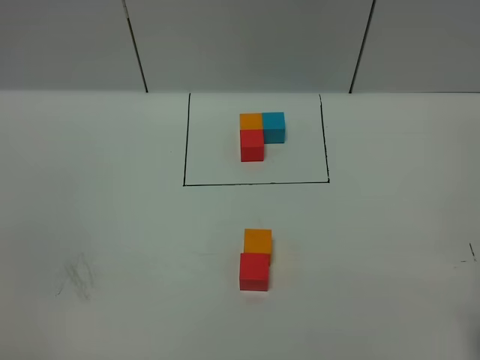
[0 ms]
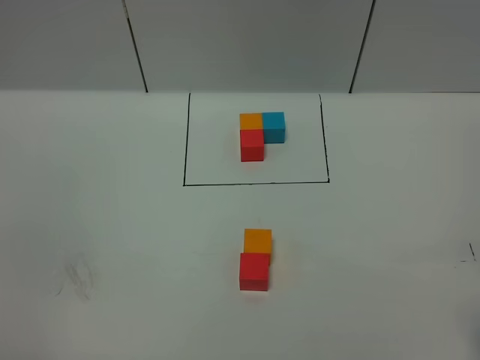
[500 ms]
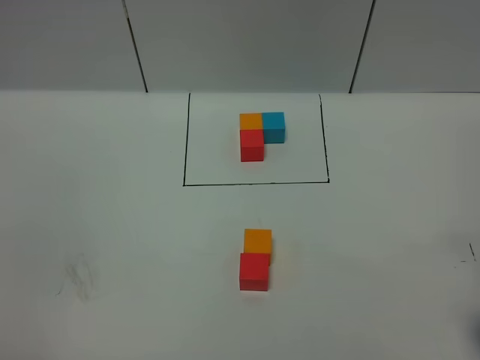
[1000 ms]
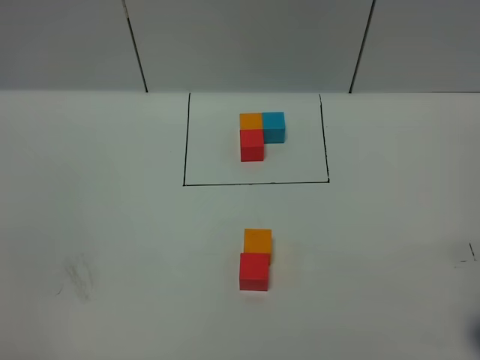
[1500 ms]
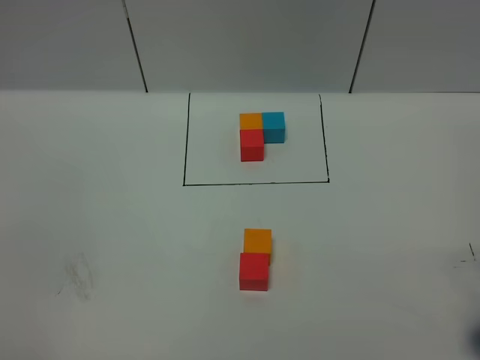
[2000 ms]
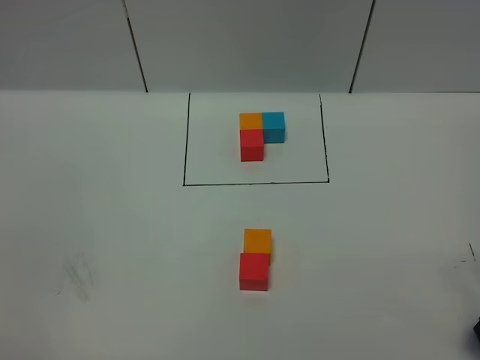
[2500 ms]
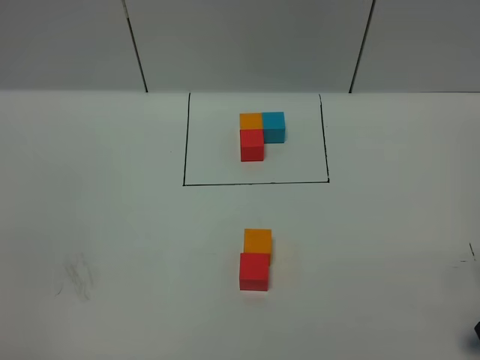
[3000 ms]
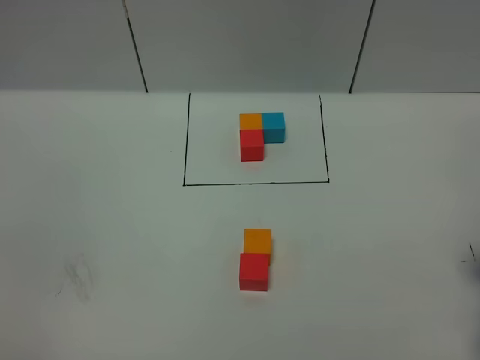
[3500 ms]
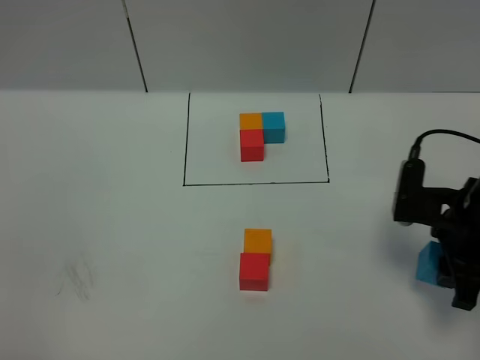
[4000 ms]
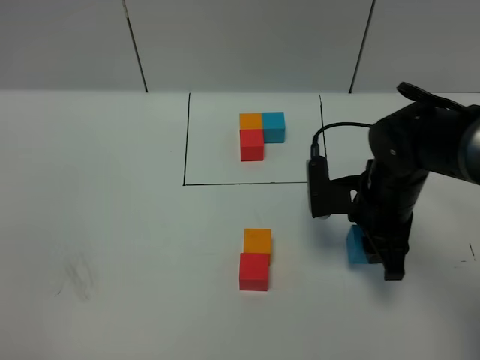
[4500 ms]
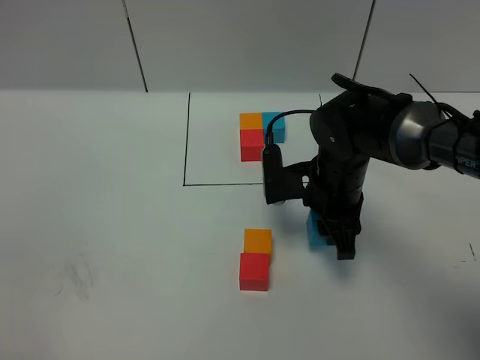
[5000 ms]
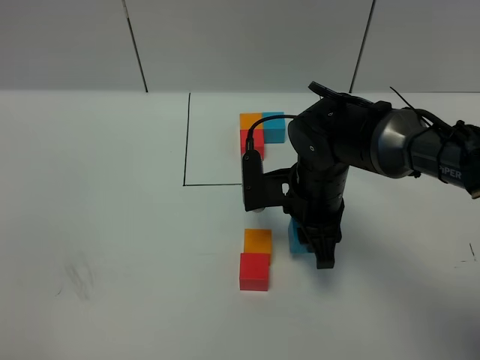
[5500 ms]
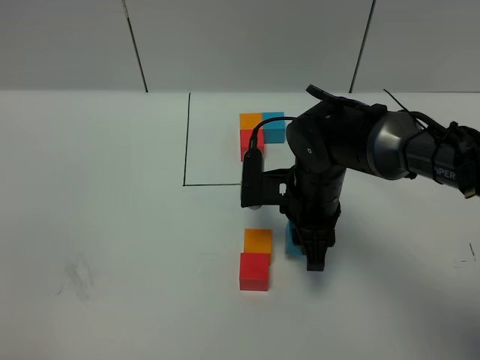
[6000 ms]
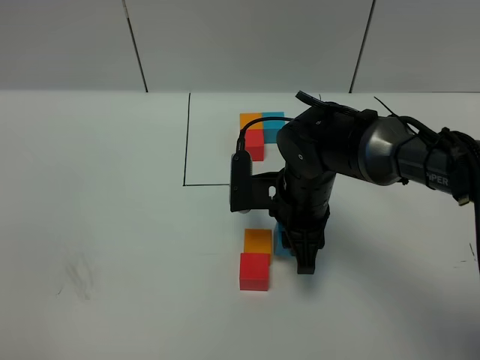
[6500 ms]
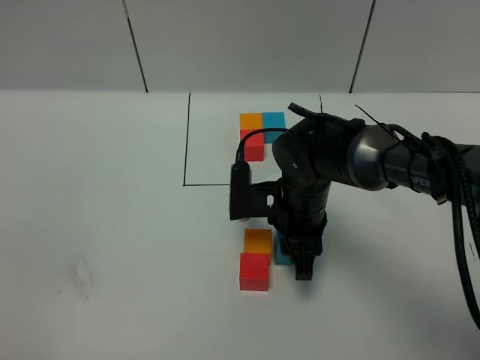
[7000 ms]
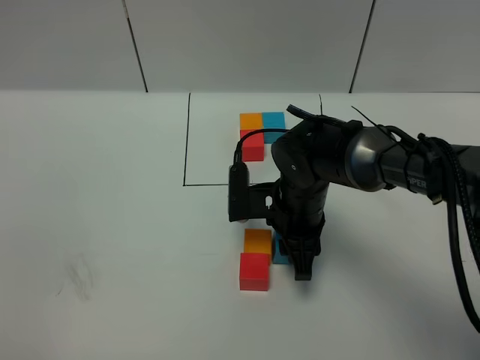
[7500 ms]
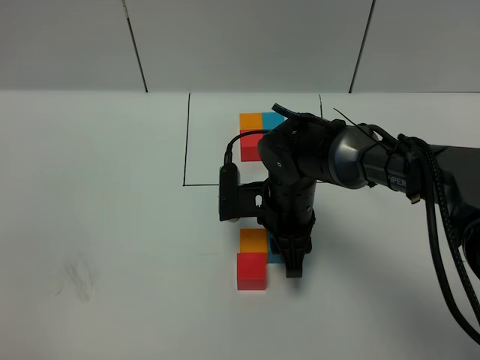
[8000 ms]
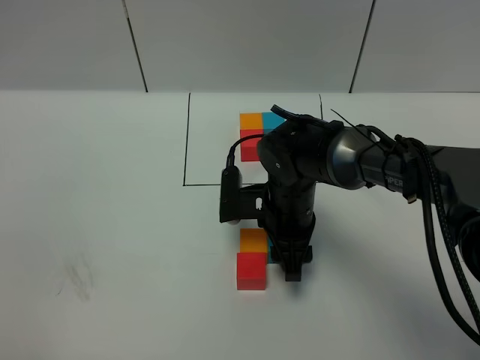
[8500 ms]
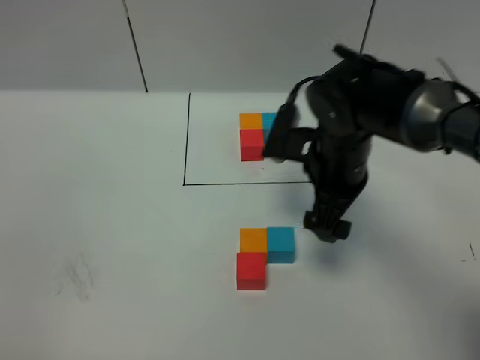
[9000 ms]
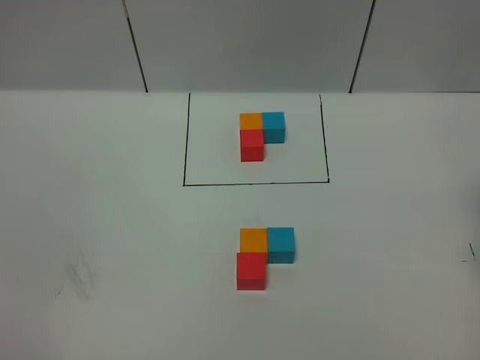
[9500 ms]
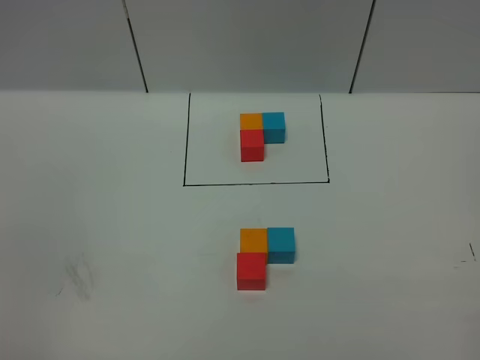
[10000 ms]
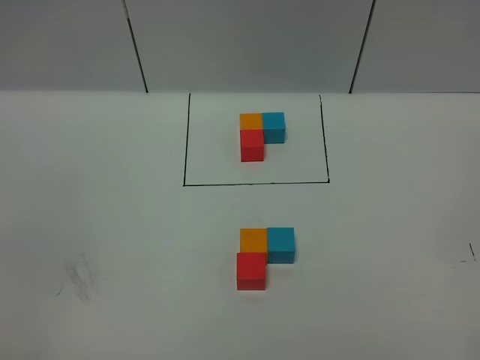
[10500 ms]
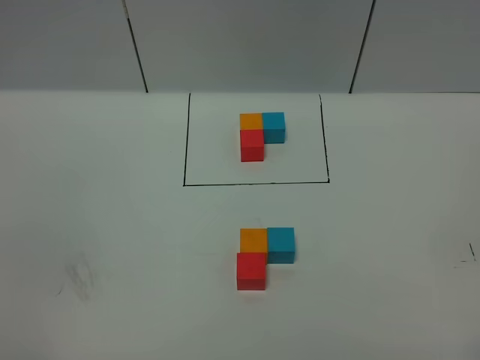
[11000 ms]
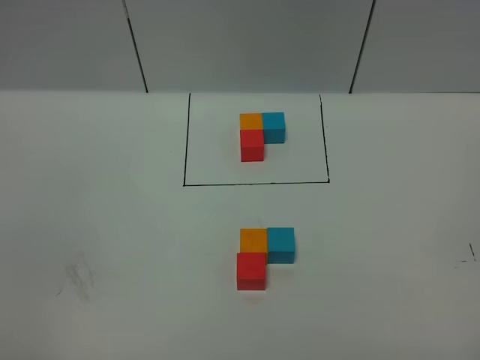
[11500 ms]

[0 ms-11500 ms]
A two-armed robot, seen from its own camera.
Task of the whole recording: According to the building block template in front, assemble the scattered blocks together.
Step, 0 ms to 8500 ms: Put the blue cube on the right of the orange cube.
2000 ms to 4000 ms: The right gripper heads to the left and forward, covering about 10 cm, and closes its fingers.
4000 ms to 6000 ms: The right gripper travels to the left and forward by roughly 20 cm.
6000 ms to 7500 ms: The grippers stay close to where they were, moving slightly.
7500 ms to 9500 ms: The right gripper heads to the right and upward, covering roughly 35 cm, and opens its fingers.

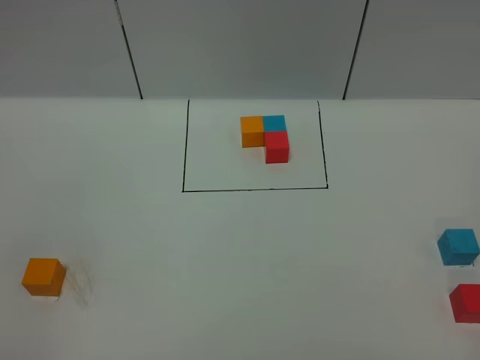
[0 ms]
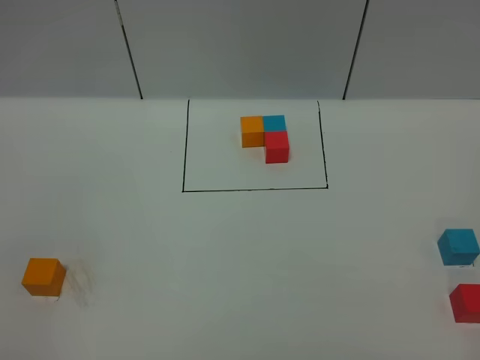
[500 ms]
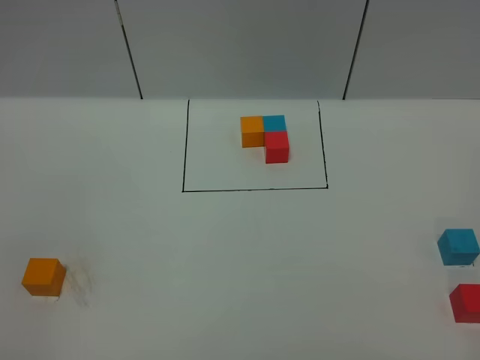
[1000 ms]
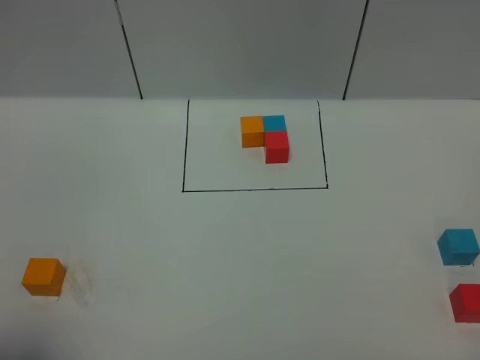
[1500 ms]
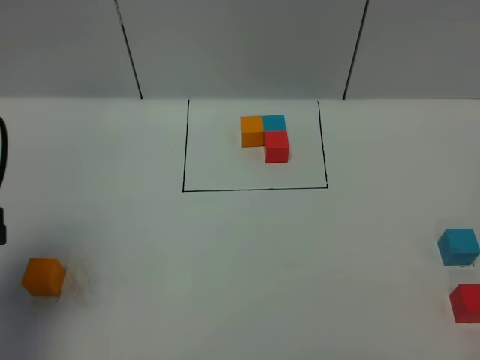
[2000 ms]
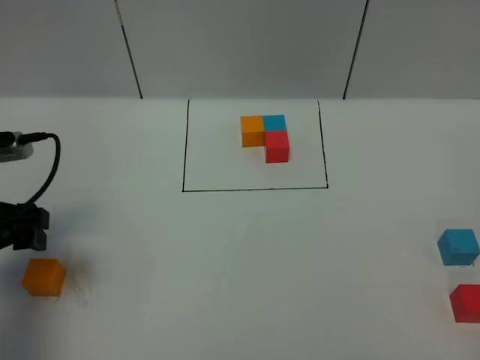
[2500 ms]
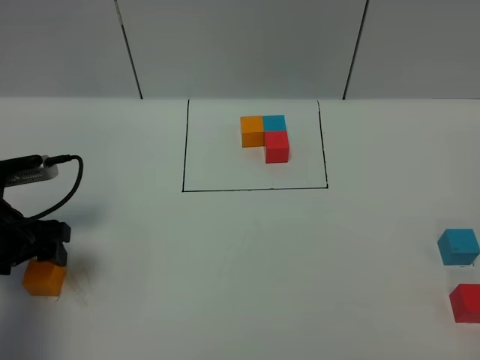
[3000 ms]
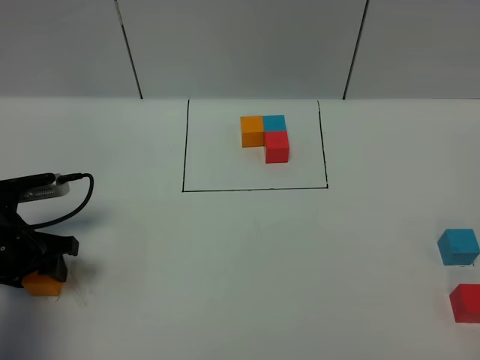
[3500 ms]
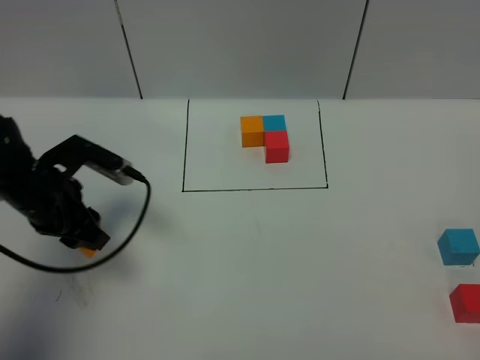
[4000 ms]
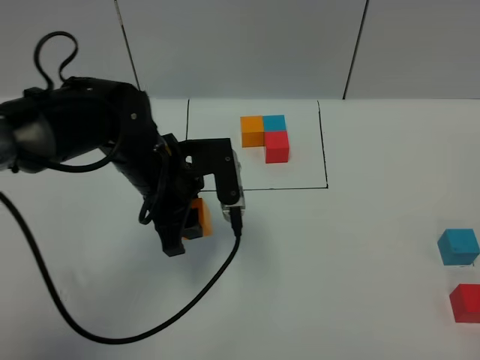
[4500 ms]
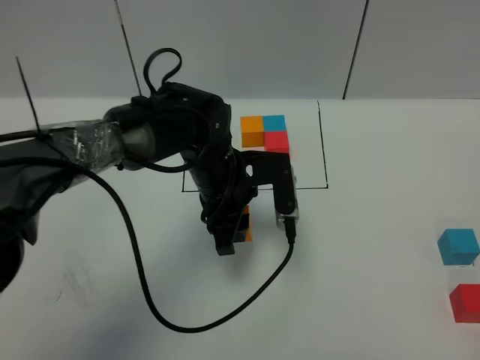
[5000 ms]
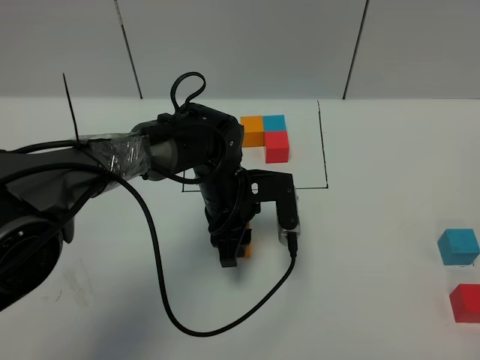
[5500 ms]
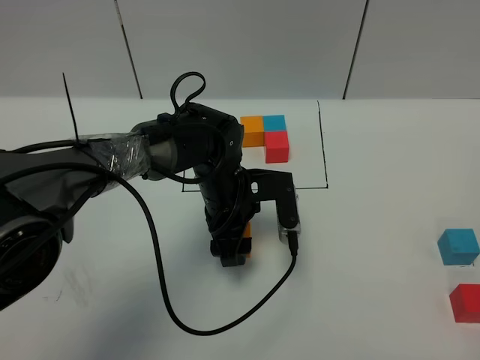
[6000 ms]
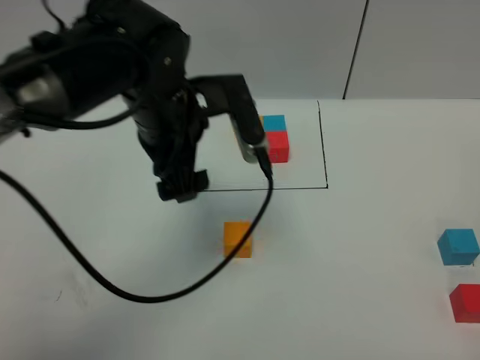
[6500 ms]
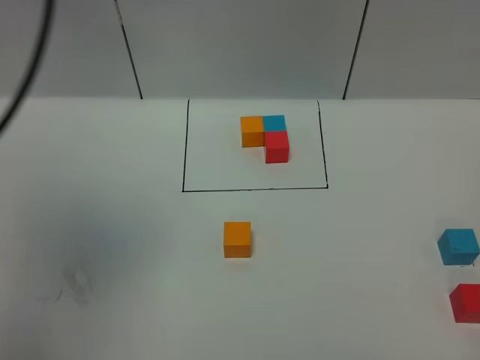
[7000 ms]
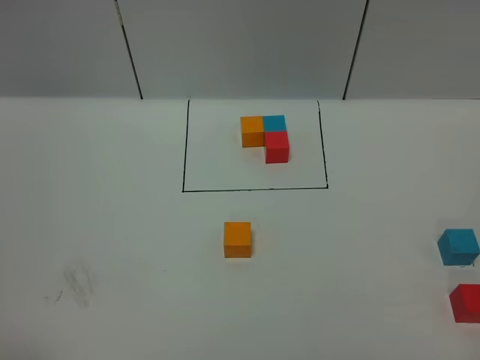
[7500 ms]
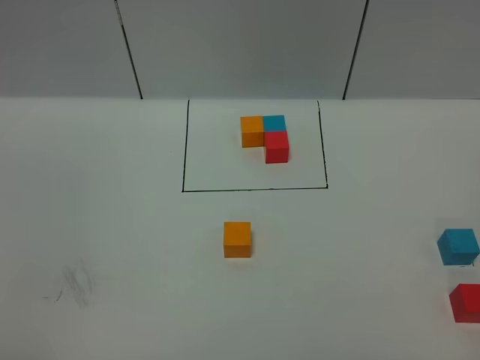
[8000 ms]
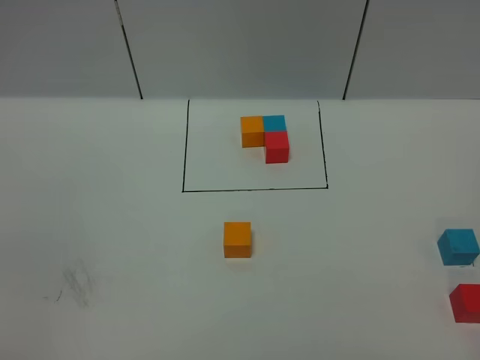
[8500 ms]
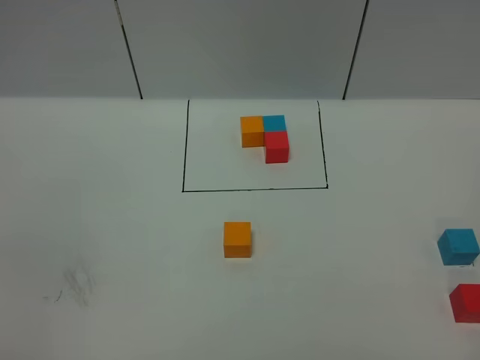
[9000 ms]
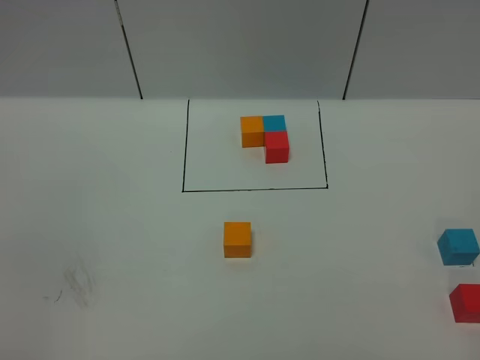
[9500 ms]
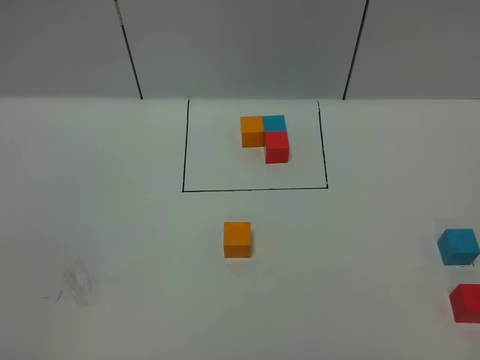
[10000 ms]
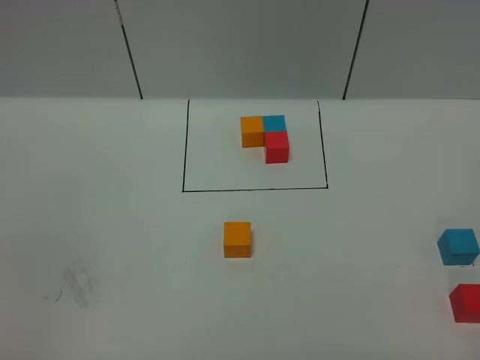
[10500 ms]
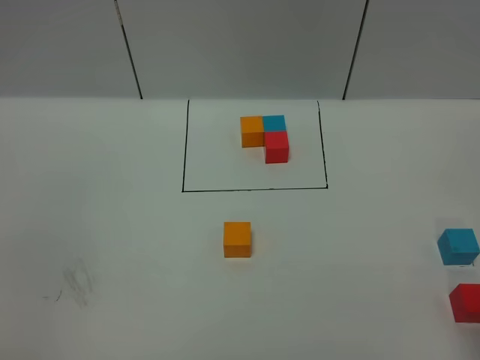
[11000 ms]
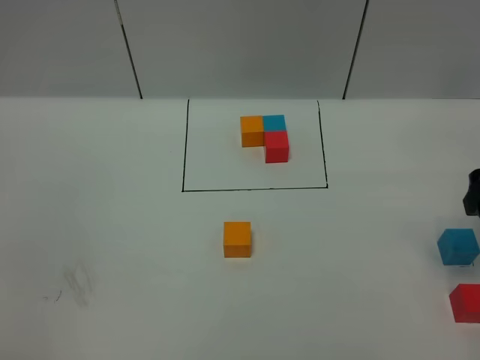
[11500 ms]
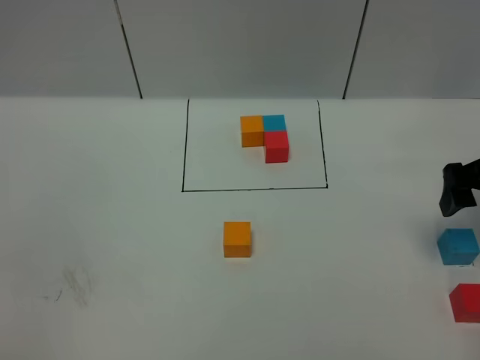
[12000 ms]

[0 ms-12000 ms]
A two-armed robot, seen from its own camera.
Task of the whole recording: According to the building block template in front, assemble the scattered blocks together.
Step, 2000 ms to 6000 ms: Put the orange cube in the center of the table.
0 ms to 2000 ms: The left gripper is displaced forward by some 20 cm.
2000 ms to 4000 ms: The left gripper shifts about 15 cm forward, downward and to the right, and closes its fingers.
4000 ms to 6000 ms: The left gripper shifts approximately 20 cm to the right, and opens up.
6000 ms to 8000 ms: The left gripper shifts roughly 50 cm backward, to the left and upward.
10000 ms to 12000 ms: The right gripper moves forward, some 35 cm, and opens up.

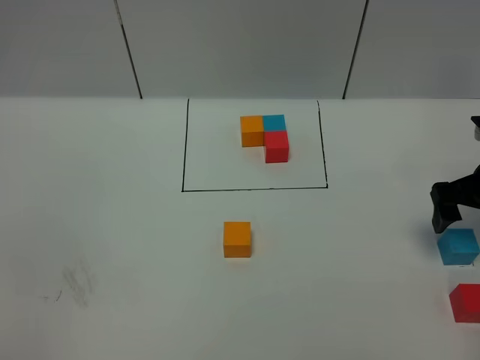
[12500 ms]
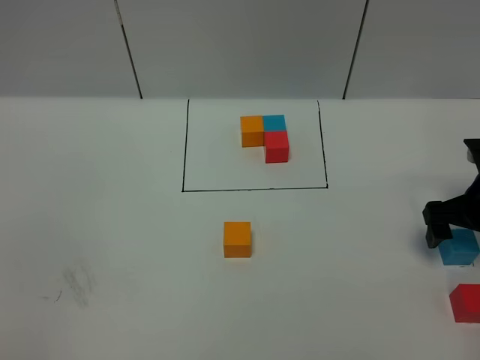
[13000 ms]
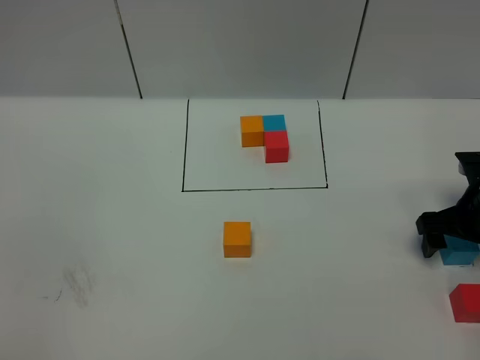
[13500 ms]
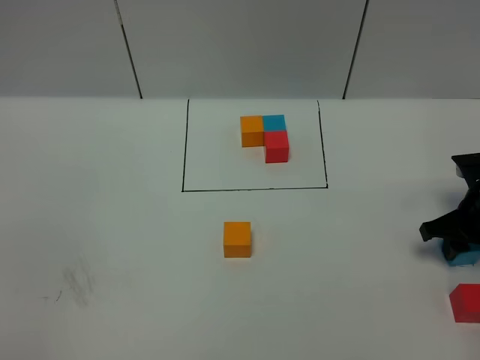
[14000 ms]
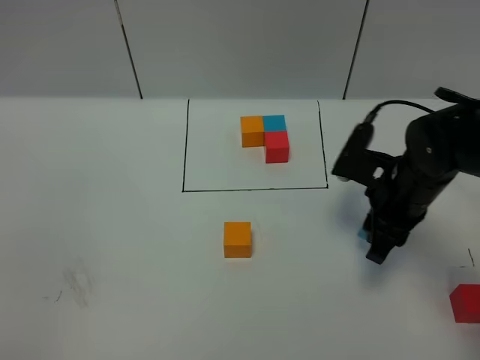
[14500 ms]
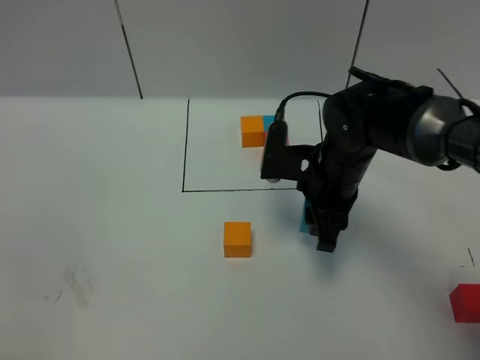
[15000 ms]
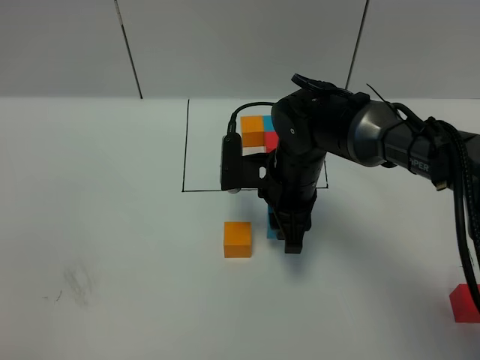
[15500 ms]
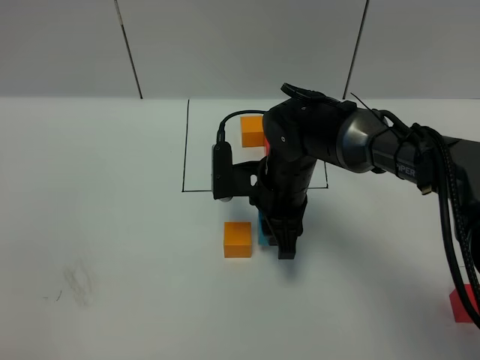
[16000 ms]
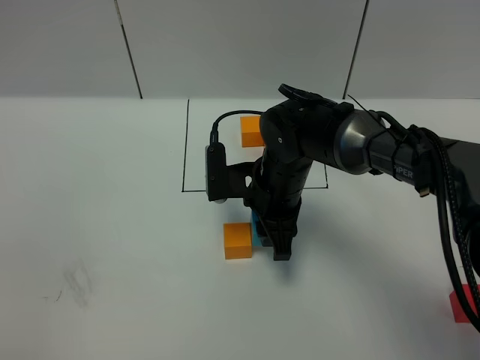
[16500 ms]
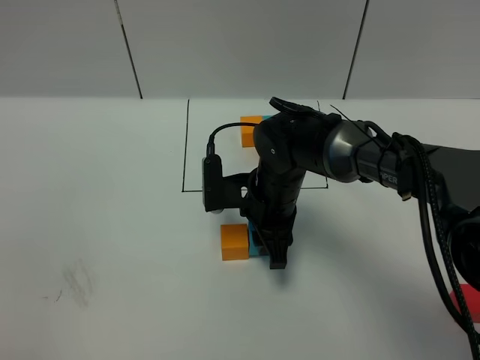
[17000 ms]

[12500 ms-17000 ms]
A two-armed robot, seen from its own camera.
Task of the whole recording: According to the building block template in front, assemble the scattered blocks together.
12500 ms to 14500 ms: The right gripper moves to the left, approximately 15 cm, and closes.
14500 ms to 17000 ms: The right gripper travels to the left by some 15 cm.
